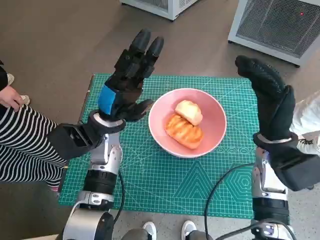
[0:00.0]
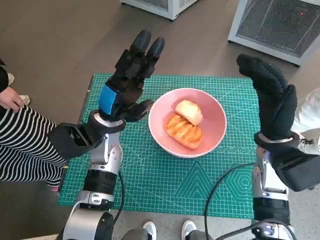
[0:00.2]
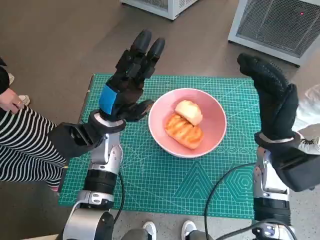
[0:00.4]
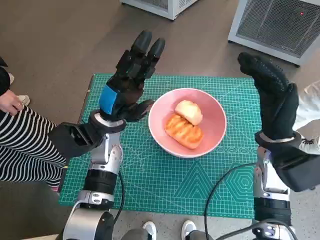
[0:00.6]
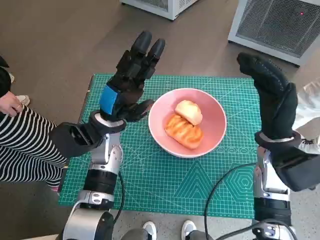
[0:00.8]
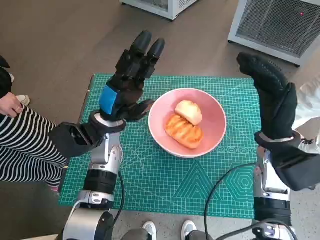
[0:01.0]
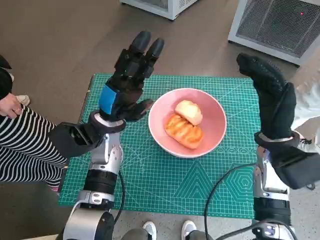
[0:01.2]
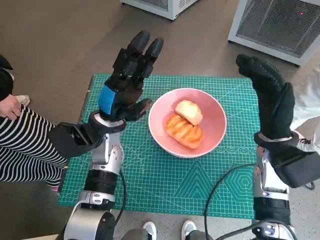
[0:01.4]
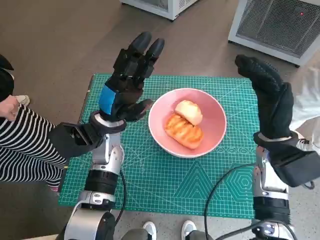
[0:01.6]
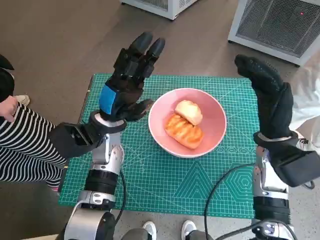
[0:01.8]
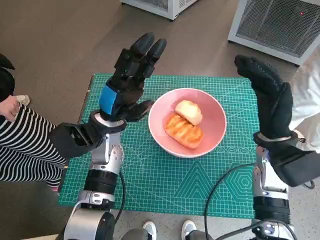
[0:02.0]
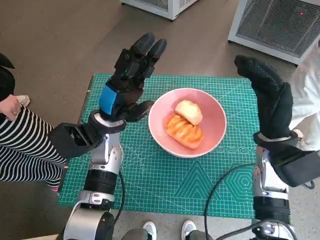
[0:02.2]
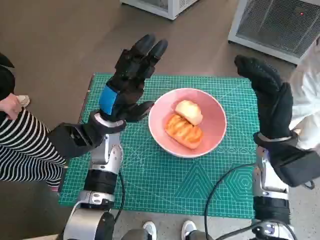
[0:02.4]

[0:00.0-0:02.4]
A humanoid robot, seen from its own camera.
Task of the whole recording: Push the bowl into the center of the table and put the bread into the bowl.
0:00.0 to 0:02.4: Neither hand changes place.

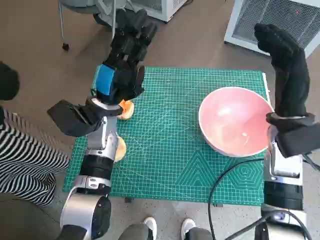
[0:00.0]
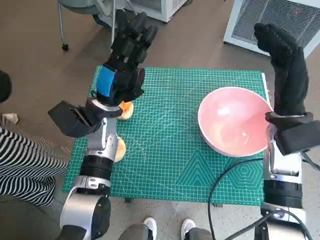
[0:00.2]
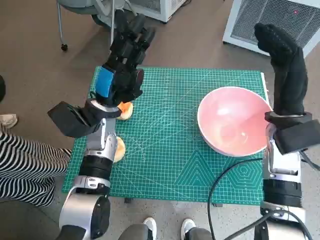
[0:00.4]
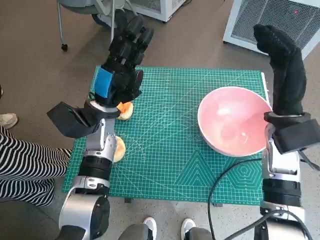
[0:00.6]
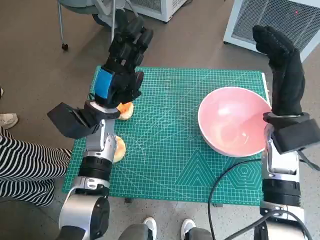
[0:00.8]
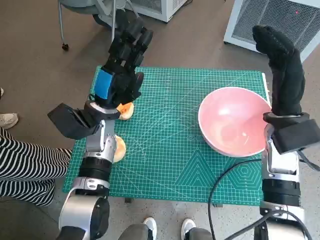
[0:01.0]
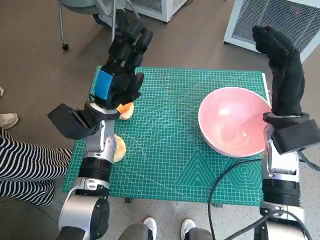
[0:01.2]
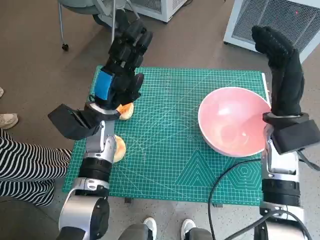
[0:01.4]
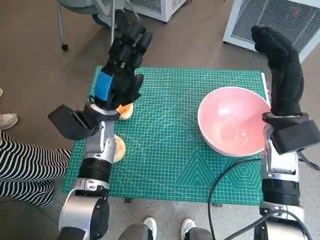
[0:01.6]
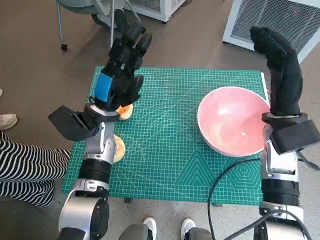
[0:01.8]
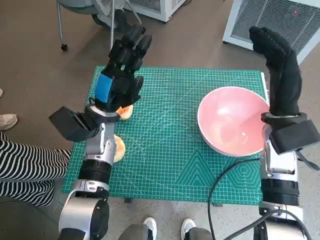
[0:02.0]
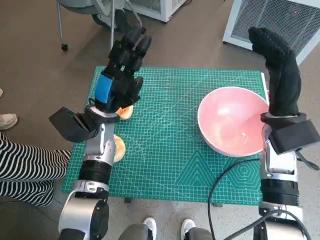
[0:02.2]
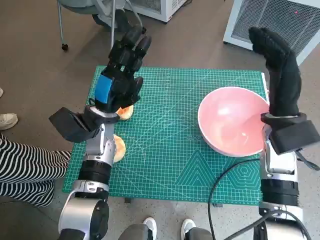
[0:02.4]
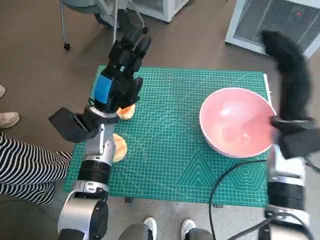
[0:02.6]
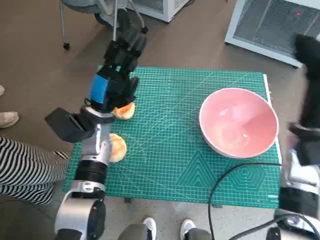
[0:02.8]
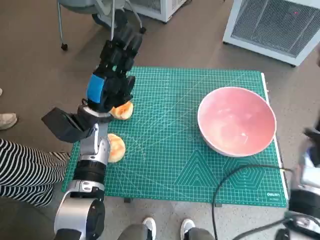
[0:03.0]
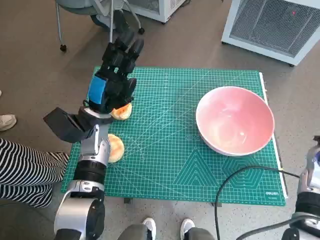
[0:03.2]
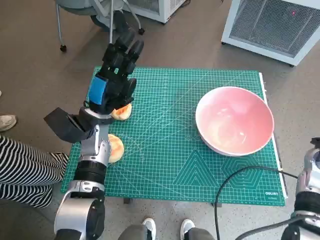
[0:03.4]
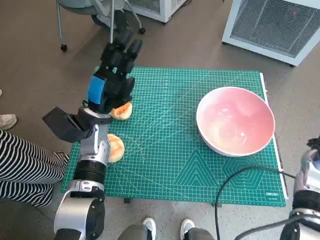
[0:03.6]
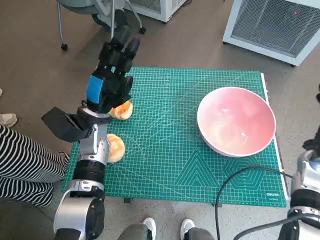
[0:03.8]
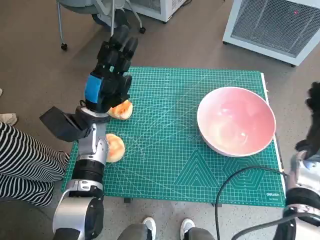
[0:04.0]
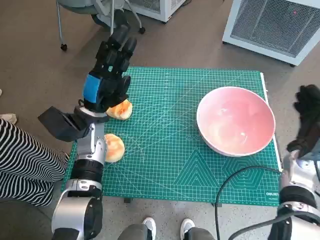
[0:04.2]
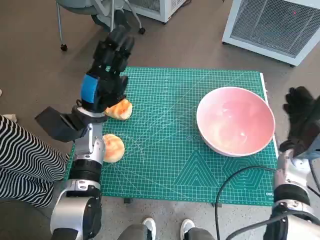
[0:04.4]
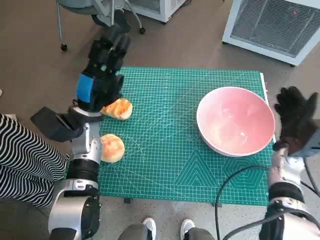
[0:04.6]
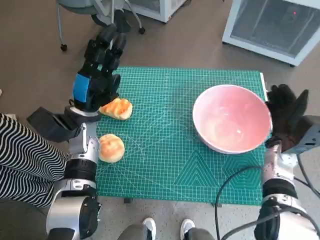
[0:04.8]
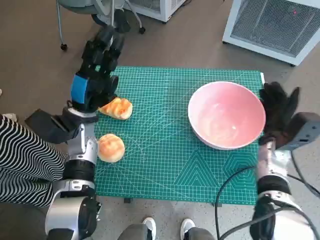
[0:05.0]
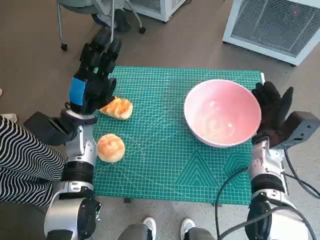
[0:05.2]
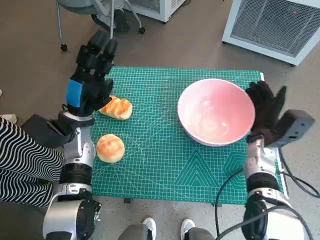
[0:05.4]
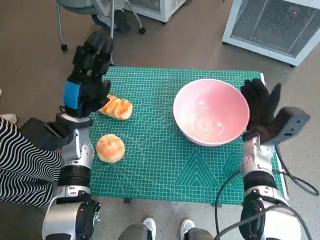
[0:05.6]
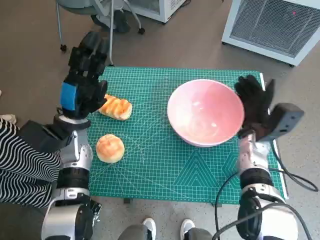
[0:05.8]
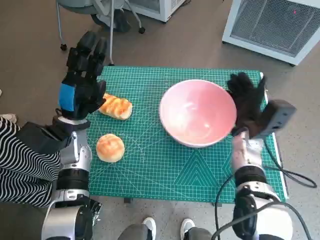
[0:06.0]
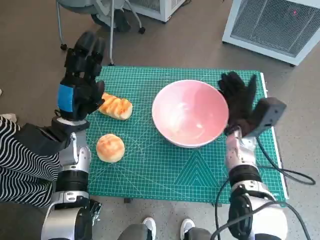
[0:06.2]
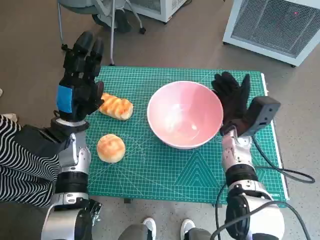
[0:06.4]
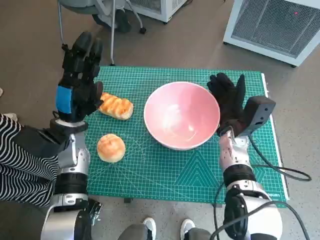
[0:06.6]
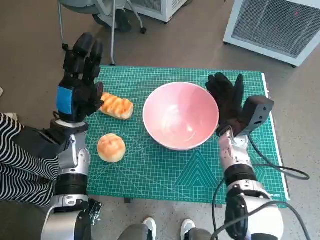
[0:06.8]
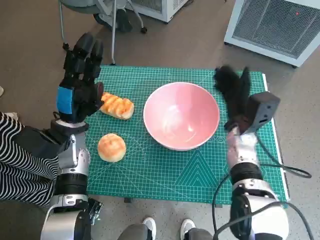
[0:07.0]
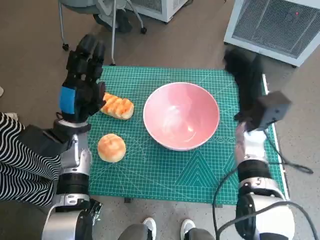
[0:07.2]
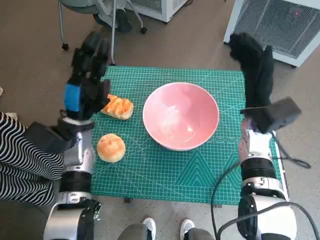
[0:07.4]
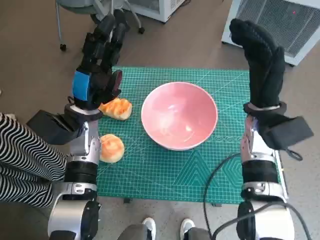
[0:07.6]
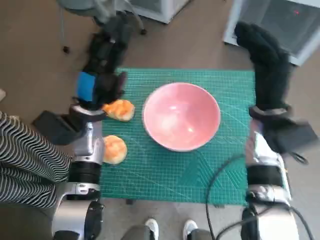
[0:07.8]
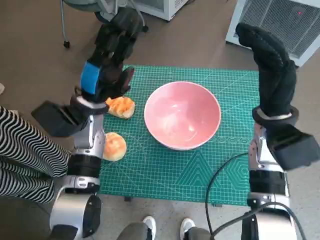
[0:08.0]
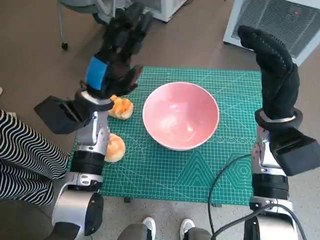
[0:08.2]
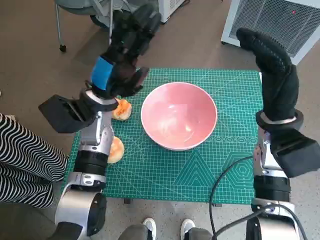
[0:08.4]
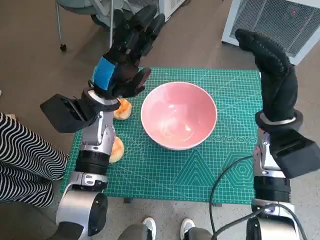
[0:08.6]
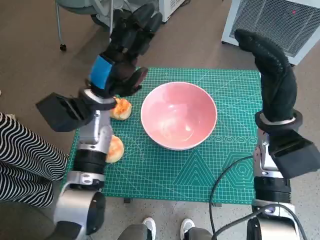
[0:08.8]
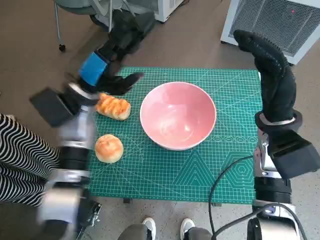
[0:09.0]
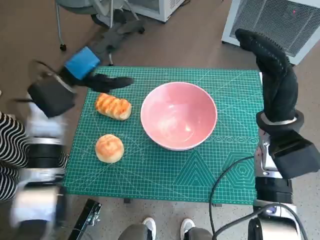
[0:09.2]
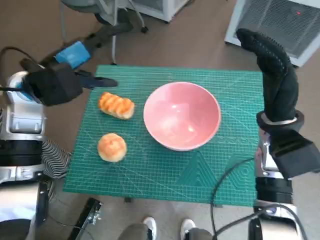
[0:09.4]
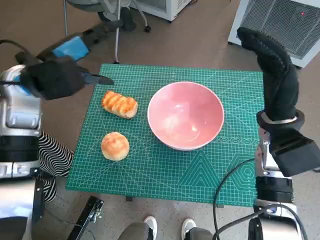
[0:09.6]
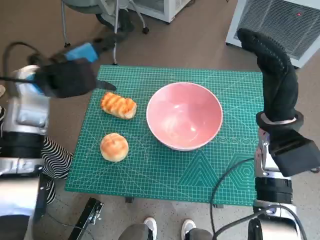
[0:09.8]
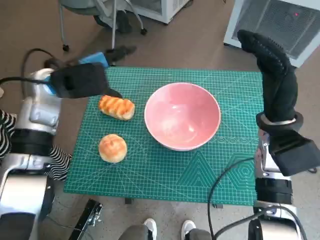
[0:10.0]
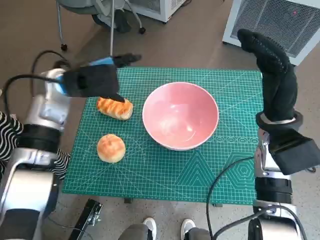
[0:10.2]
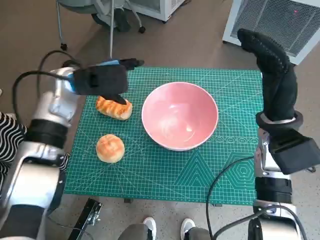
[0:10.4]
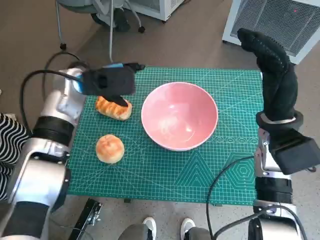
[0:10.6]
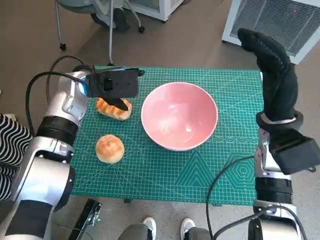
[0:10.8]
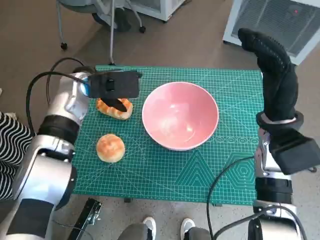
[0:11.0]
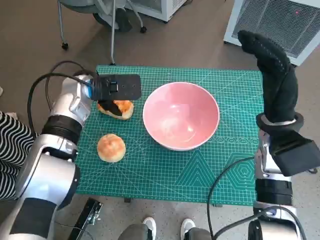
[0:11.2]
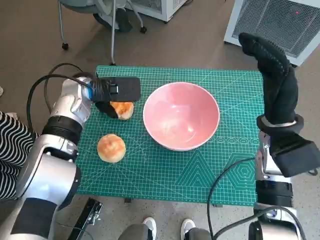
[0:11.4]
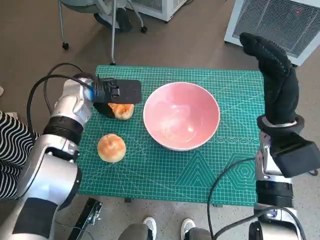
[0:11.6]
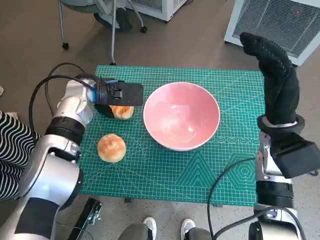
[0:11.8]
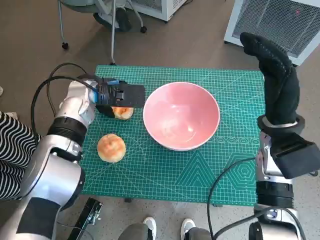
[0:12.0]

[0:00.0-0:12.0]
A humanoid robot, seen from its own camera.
Task of the whole recording: Push the bowl into the center of the table and put the bread into the bowl.
Step, 0:00.0 to 0:07.0: Move the pink bowl to the center of table with right hand.
0:01.6 to 0:03.0: The right hand shifts roughly 5 cm to the right.
0:03.0 to 0:04.4: The right hand travels downward by approximately 10 cm.
0:04.4 to 0:06.0: The right hand is displaced to the left by about 10 cm.
0:06.0 to 0:07.6: The right hand travels upward by roughly 10 cm.
0:07.6 to 0:09.0: The left hand moves upward, roughly 5 cm.

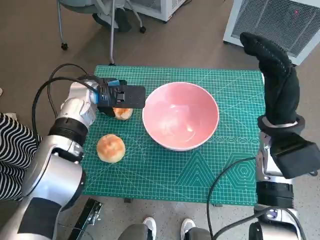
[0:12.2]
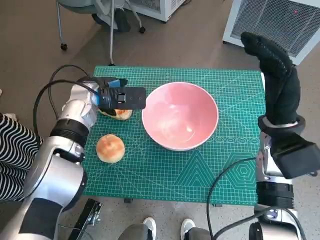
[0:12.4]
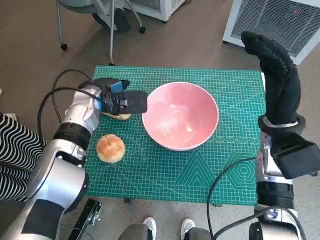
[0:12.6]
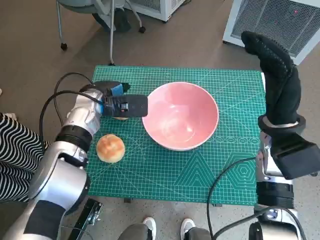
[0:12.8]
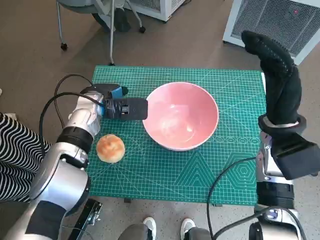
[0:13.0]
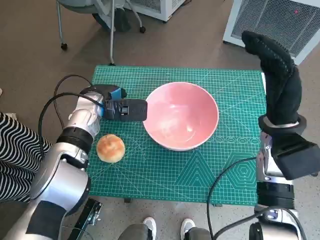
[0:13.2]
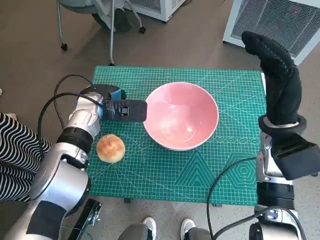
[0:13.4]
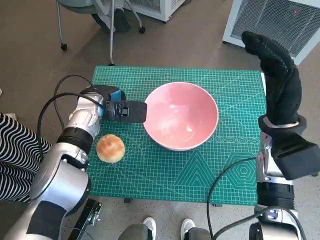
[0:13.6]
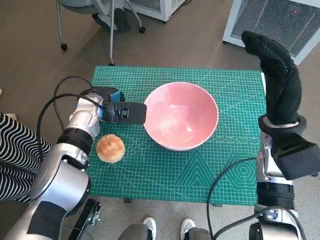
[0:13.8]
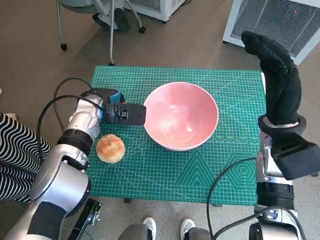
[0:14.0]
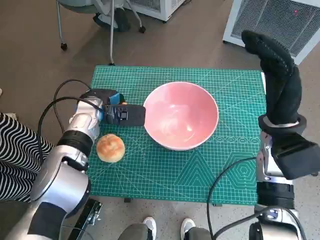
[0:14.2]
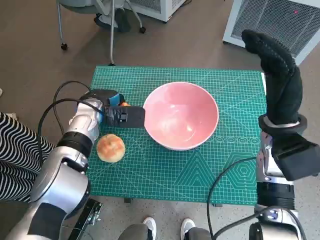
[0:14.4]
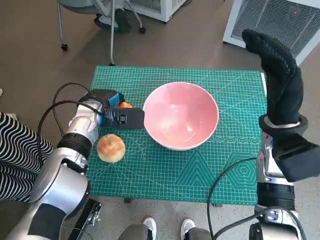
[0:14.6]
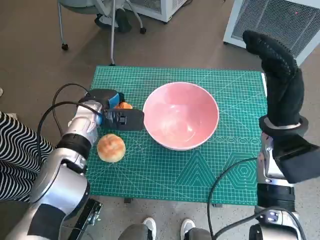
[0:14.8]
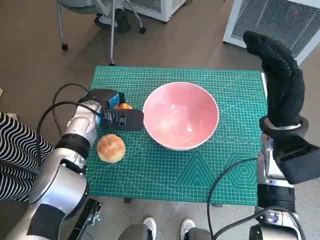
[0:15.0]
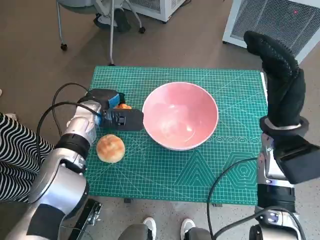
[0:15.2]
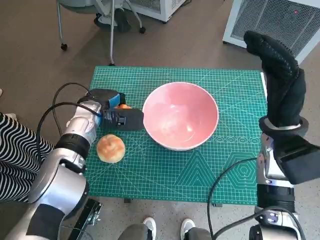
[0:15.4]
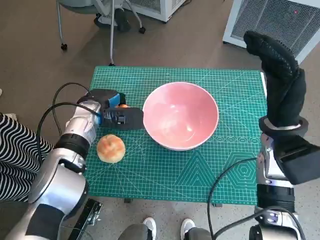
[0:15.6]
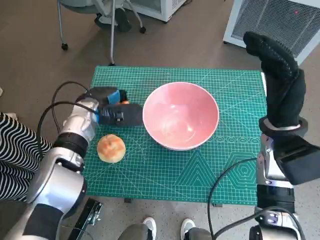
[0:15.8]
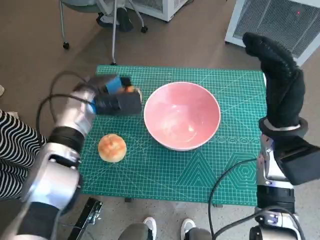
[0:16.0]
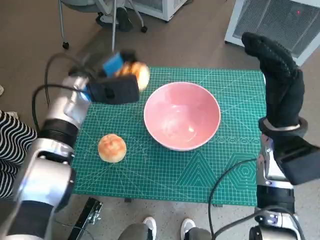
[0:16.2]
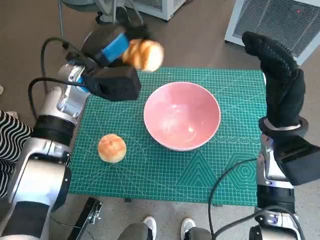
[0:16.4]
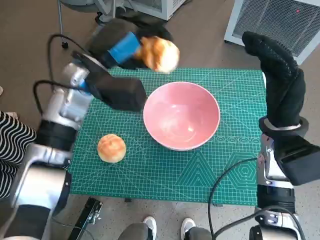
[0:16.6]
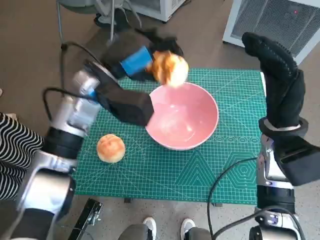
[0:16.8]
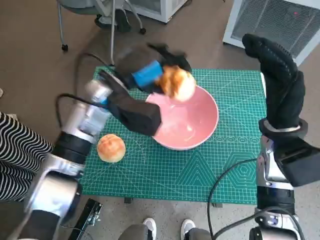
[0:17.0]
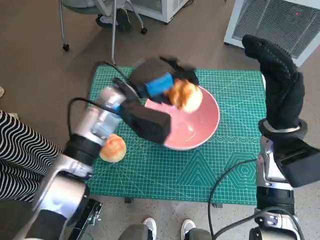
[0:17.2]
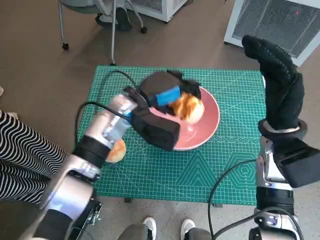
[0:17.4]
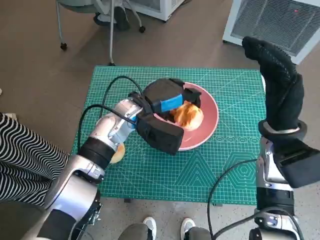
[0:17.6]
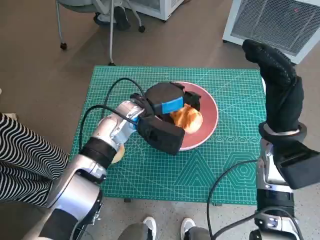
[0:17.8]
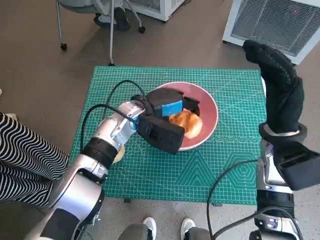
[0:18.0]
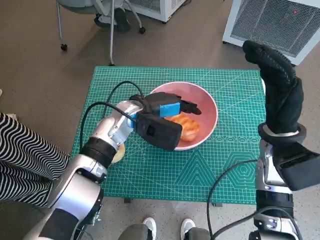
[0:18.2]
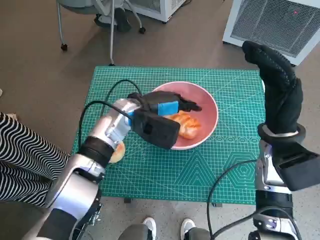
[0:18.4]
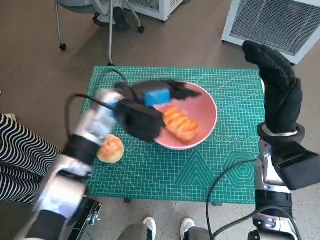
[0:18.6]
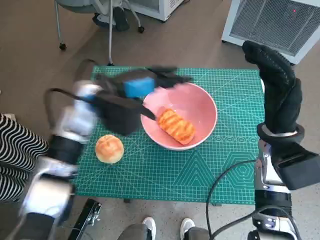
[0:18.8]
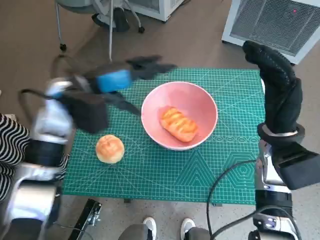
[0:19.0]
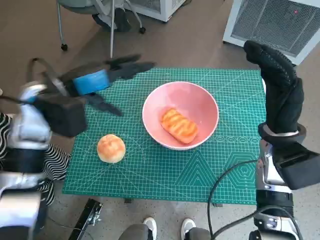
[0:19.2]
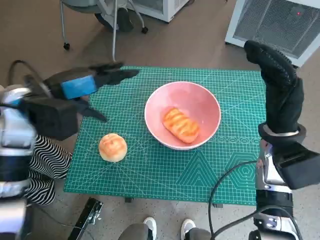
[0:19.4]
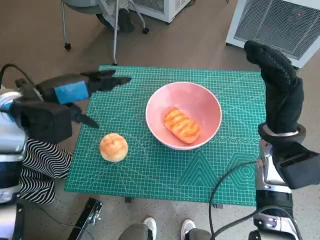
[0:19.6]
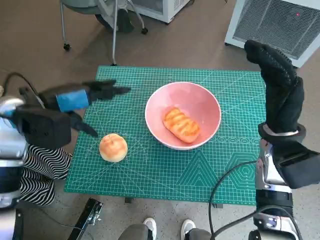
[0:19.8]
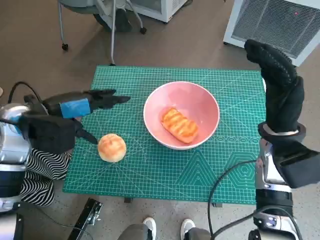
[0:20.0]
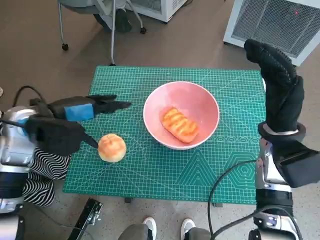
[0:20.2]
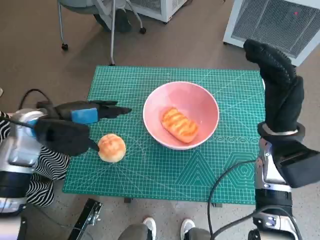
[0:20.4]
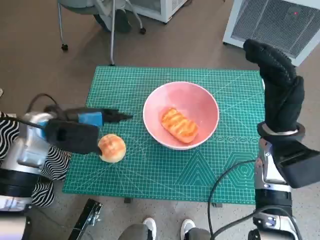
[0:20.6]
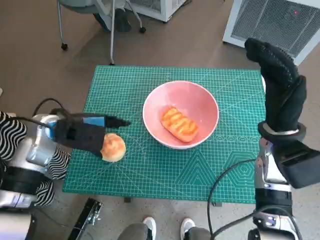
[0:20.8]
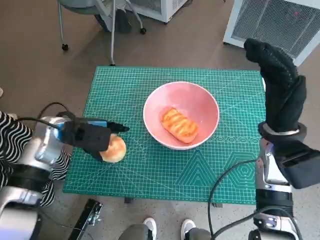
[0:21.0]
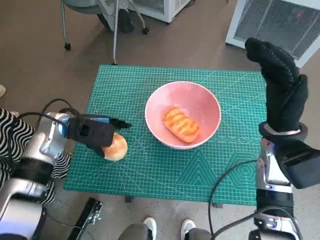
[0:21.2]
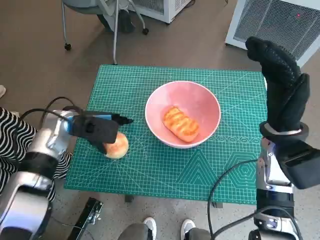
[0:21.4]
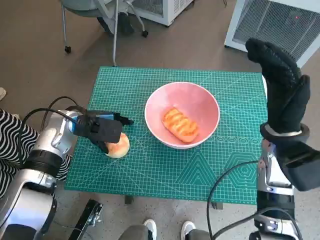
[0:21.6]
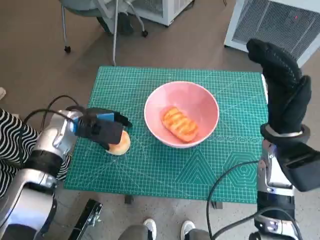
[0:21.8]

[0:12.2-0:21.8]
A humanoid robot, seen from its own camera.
Task of the whole recording: Push the bowl into the center of the table and put the bread into the bowl.
Step, 0:12.2 to 0:14.4: Grasp the long bread with left hand.
Step, 0:14.8 to 0:18.8: Place the long bread in pink bowl with left hand.
0:12.2 to 0:15.4: The hands stay close to where they were, moving slightly.
0:15.4 to 0:17.0: The left hand heads upward and to the right, covering about 10 cm.
0:18.6 to 0:20.2: The left hand goes approximately 15 cm to the left and backward.
0:20.2 to 0:21.8: The left hand goes some 10 cm downward.
